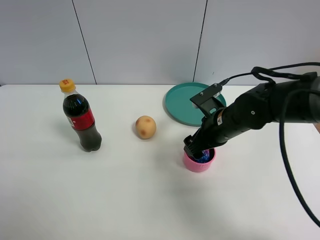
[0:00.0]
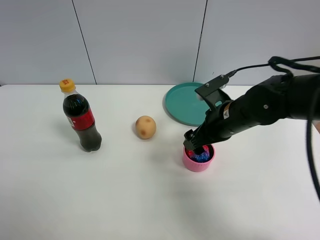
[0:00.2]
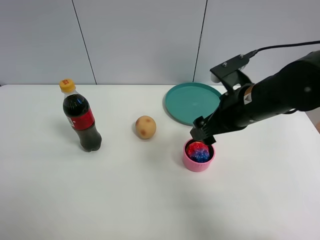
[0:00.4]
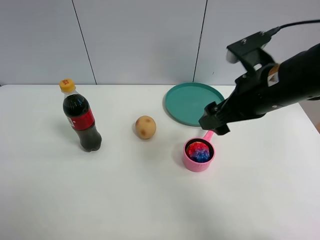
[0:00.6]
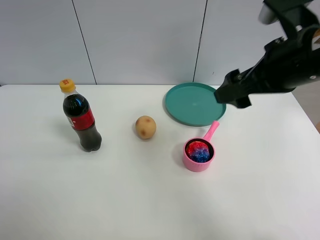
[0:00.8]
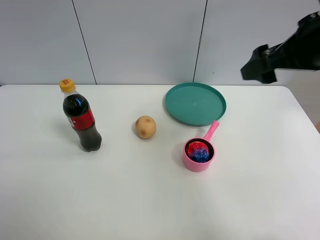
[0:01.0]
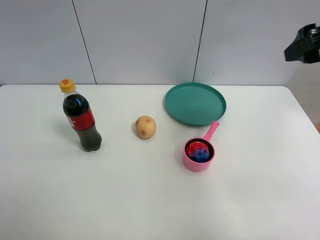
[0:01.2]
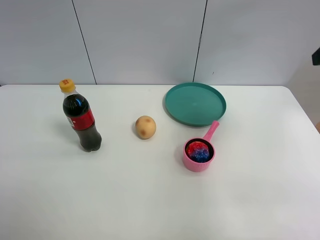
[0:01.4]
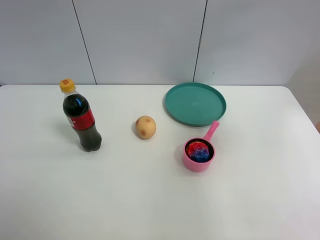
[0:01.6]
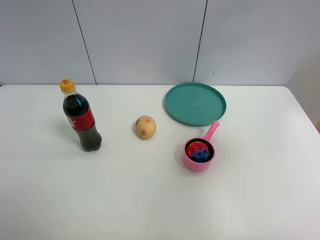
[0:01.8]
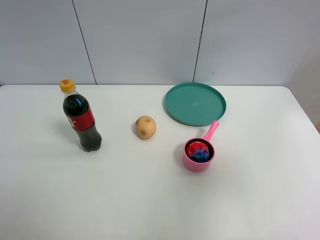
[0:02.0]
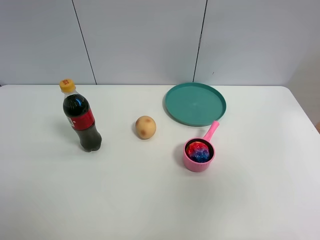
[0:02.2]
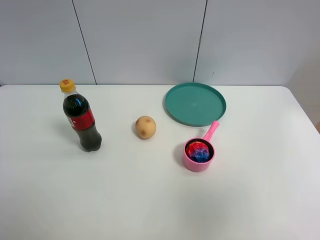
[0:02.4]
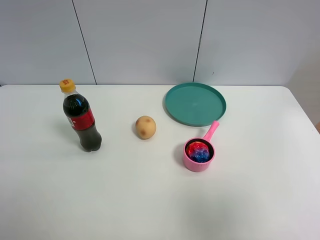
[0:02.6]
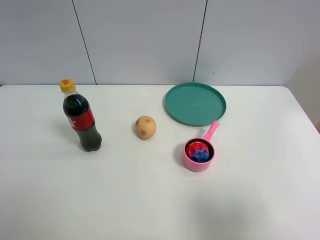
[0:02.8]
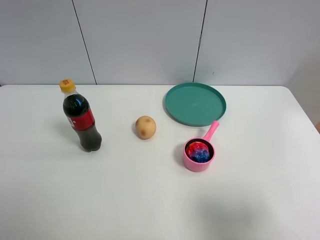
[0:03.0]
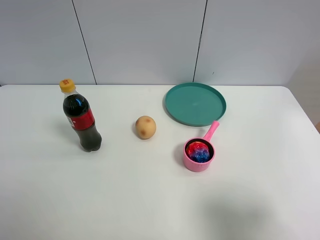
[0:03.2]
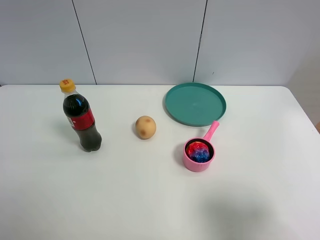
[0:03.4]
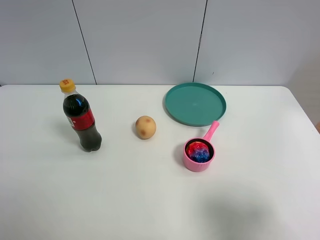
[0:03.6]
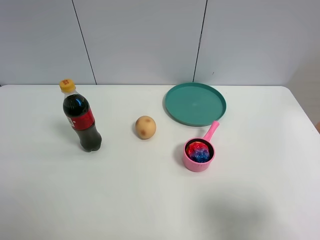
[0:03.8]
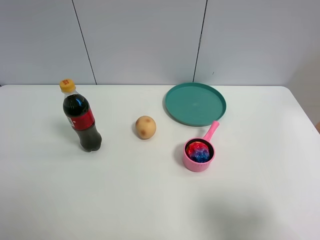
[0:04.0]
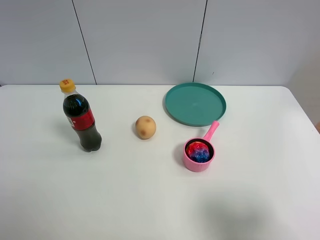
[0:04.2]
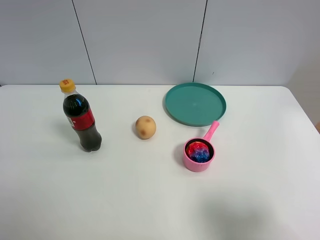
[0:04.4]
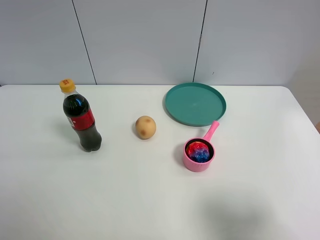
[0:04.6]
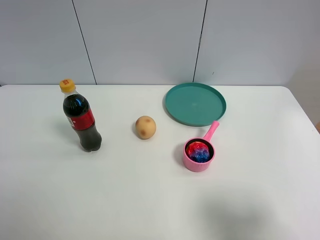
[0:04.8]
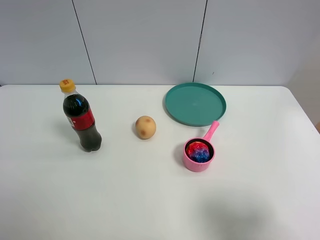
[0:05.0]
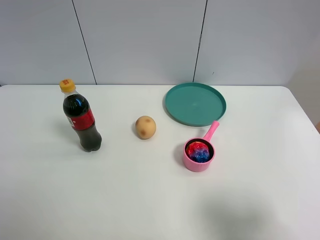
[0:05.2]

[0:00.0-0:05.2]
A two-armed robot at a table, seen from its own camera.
Task of the whole recording: the gripper move the object.
0:00.0 to 0:01.8: The right gripper travels upward, to the right and backward by approximately 35 cm, and opens its fingers.
0:01.8 to 0:03.4: The right gripper goes roughly 20 cm downward and backward.

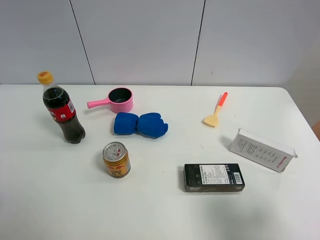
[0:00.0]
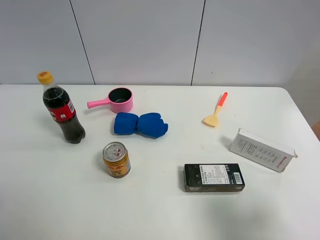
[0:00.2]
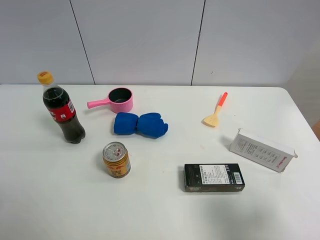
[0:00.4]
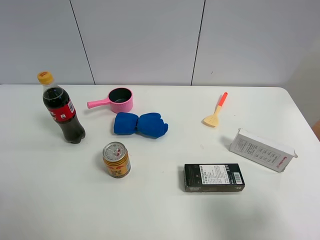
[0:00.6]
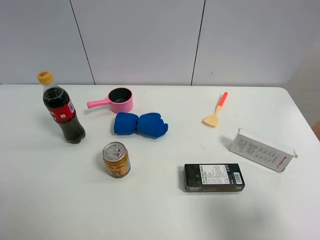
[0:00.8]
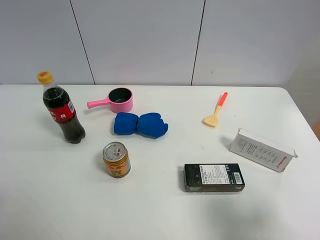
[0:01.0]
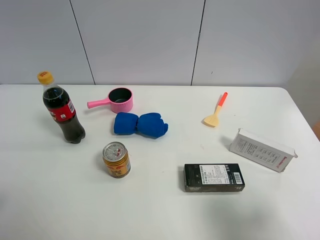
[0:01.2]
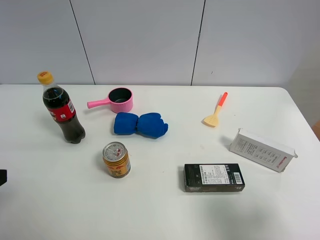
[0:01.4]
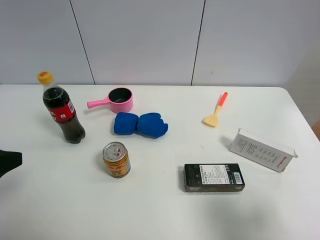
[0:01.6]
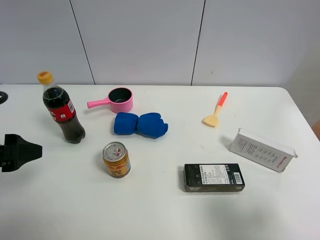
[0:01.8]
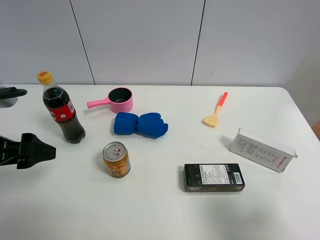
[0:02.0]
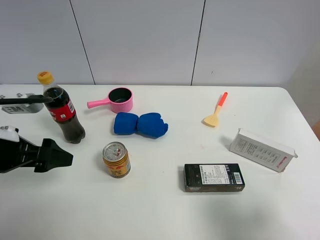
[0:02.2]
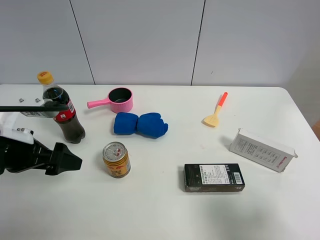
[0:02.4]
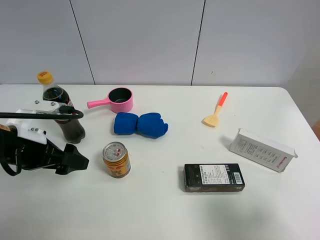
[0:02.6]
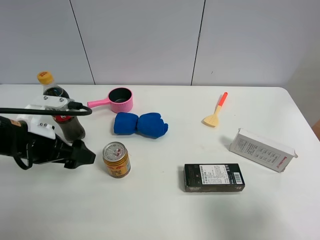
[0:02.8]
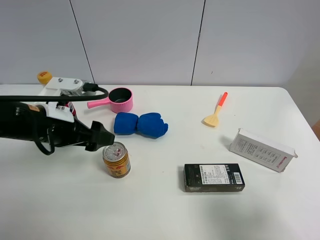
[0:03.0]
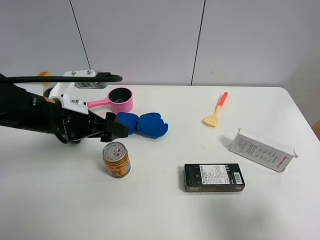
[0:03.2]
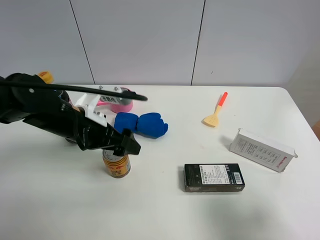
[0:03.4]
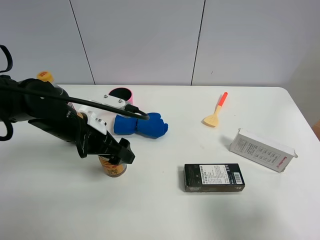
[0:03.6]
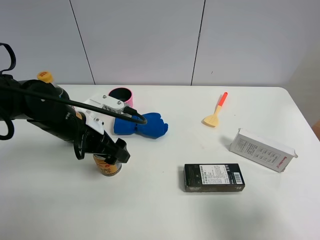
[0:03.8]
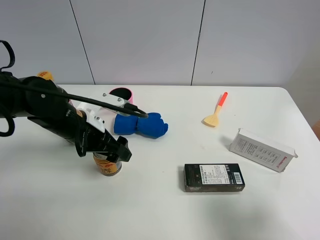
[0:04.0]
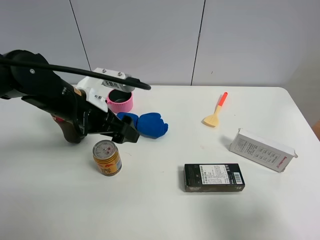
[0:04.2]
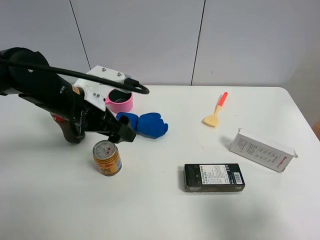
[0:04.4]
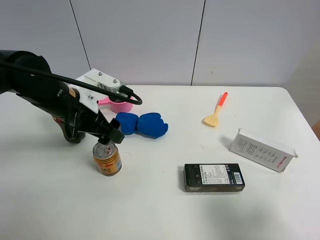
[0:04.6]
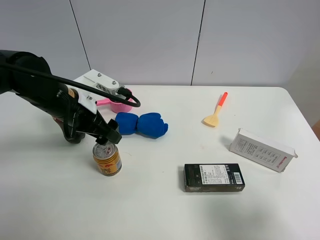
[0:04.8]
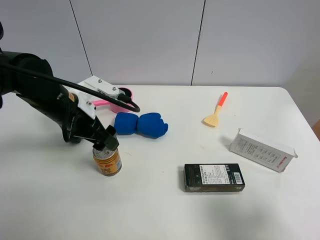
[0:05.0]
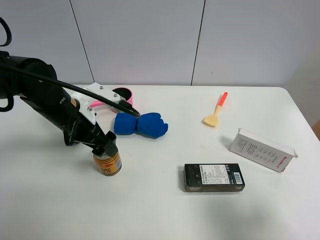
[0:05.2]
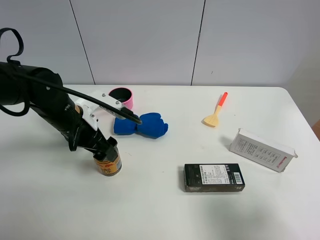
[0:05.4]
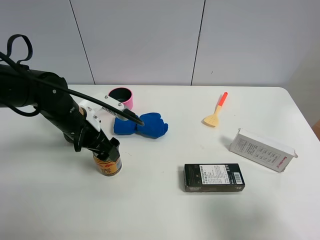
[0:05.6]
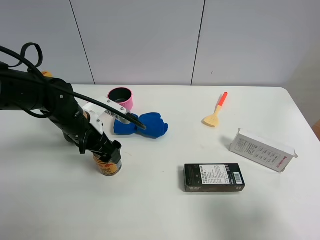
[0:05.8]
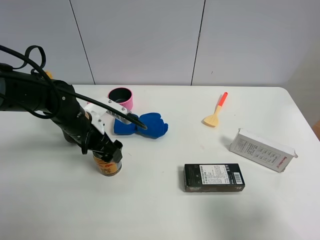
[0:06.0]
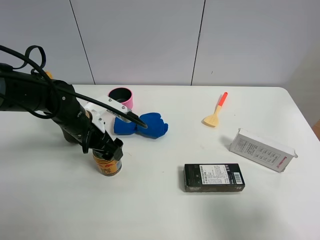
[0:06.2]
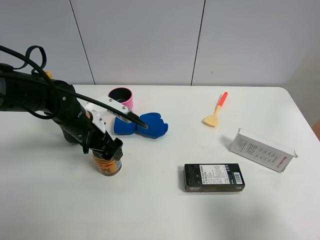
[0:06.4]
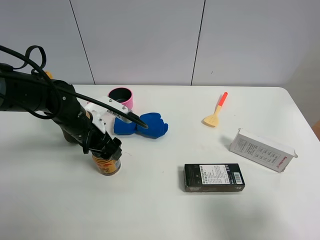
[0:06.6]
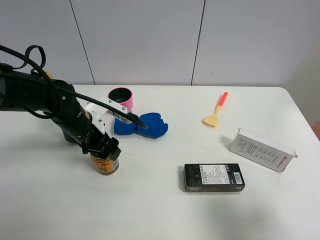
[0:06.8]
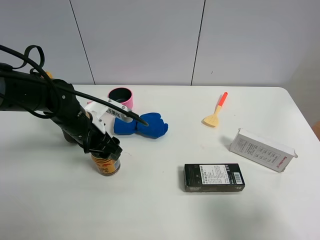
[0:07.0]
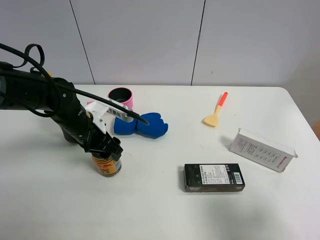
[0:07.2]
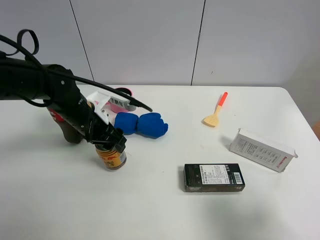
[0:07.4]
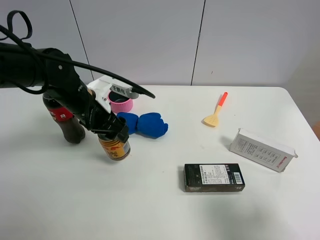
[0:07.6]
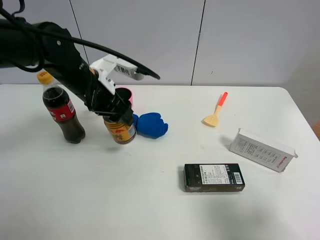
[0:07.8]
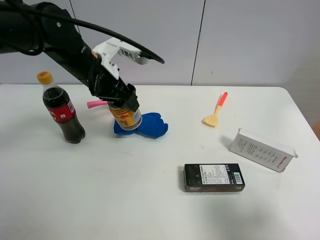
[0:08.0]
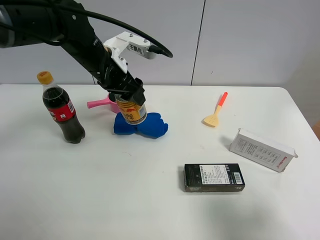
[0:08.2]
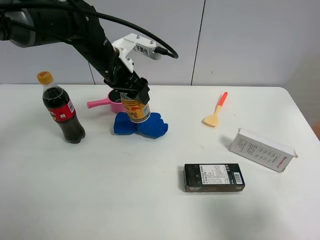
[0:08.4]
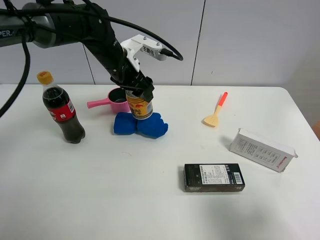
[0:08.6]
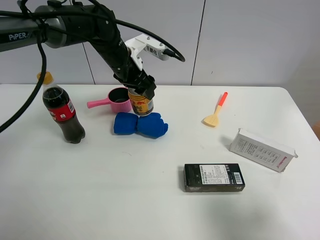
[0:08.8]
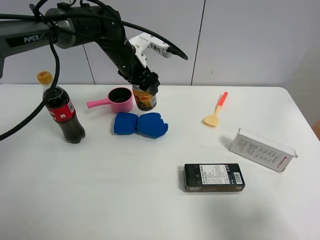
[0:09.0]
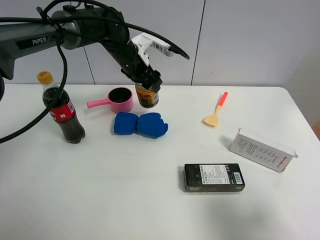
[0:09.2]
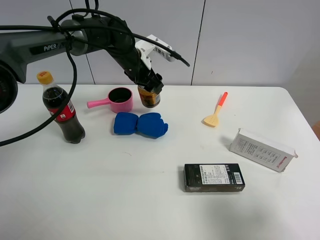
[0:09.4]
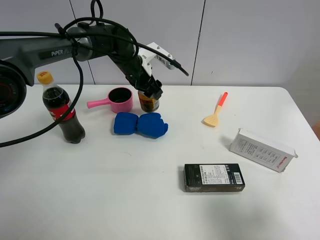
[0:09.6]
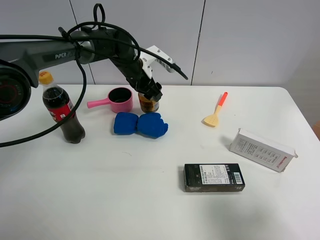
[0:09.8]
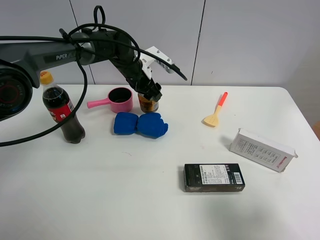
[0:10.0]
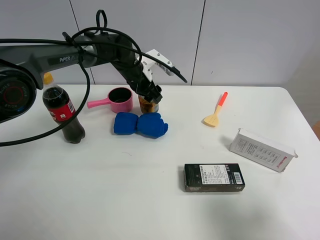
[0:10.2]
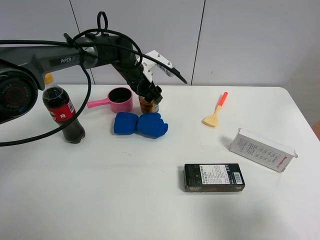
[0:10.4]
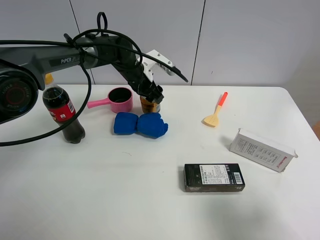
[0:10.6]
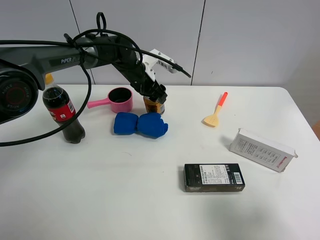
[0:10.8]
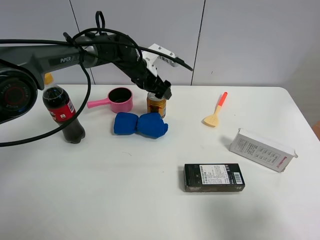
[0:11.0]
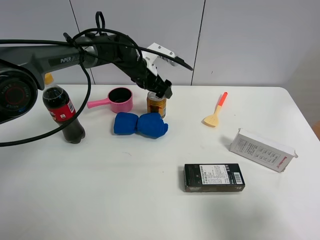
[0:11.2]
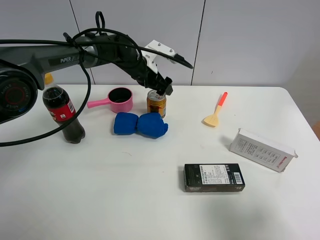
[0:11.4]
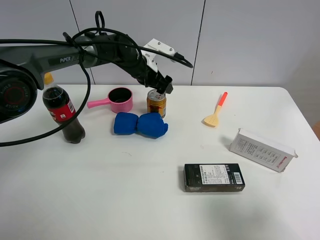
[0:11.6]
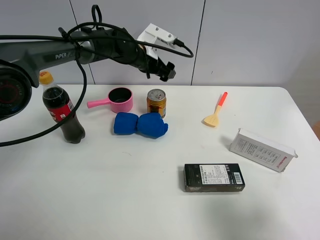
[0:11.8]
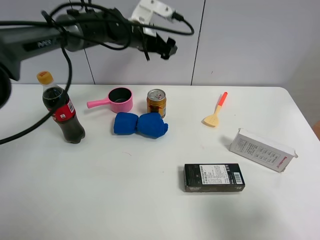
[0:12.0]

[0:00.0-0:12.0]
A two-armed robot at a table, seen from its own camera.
Task of the whole recording: the gripper move the object.
Step, 0:00.0 to 0:06.8: Grasp the red bull with the left gripper.
Step, 0:07.0 to 0:11.0: Place the red bull on the table with the left gripper.
0:00.0 to 0:01.6: The left gripper travels forward by some 10 cm.
0:01.6 to 0:03.0: The left gripper shifts approximately 15 cm forward, to the right and downward.
0:03.0 to 0:04.4: The left gripper ends up approximately 5 cm from where it was.
0:04.4 to 0:06.0: The left gripper goes some 5 cm downward.
0:06.0 to 0:07.6: The left gripper moves upward, some 5 cm, and closes its fingers.
0:07.6 to 0:09.0: The left gripper travels forward and to the right by some 15 cm.
0:09.0 to 0:10.4: The left gripper goes approximately 5 cm downward.
0:10.4 to 0:12.0: The left gripper goes about 10 cm upward, and opens its fingers.

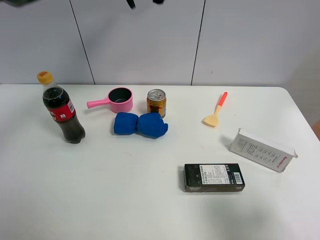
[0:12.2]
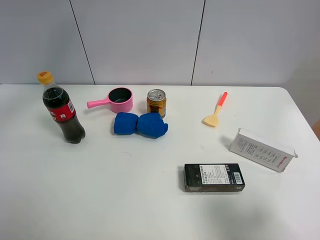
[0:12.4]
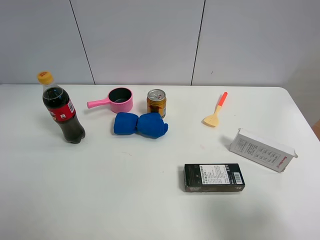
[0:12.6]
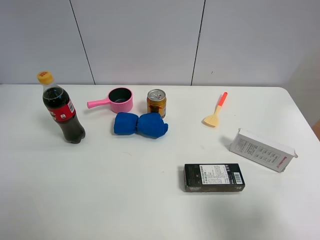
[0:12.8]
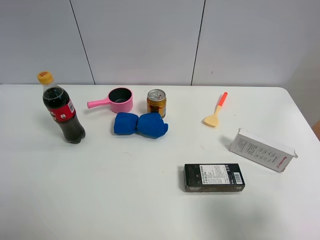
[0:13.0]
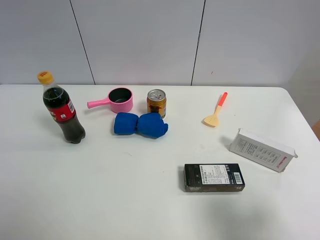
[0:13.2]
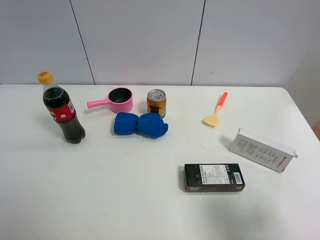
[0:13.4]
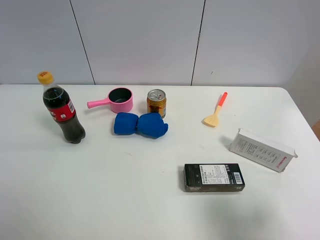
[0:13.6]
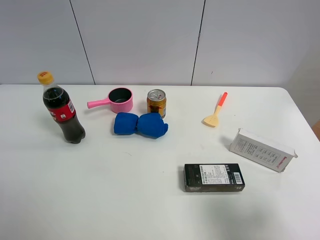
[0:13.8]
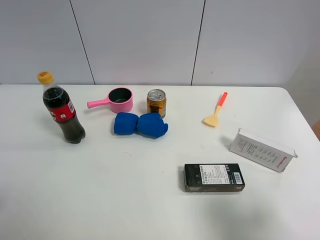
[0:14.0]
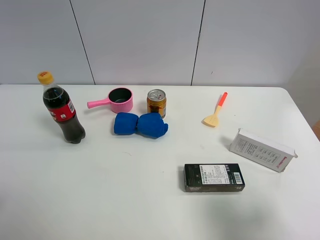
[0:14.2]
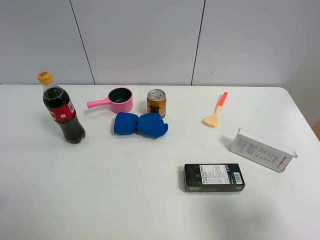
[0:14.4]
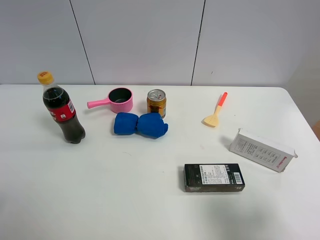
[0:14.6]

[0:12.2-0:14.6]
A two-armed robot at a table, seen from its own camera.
Task of the whole recording: the gripper move the object.
0:12.2 to 0:13.4: The left gripper is displaced backward and to the left by some 40 cm.

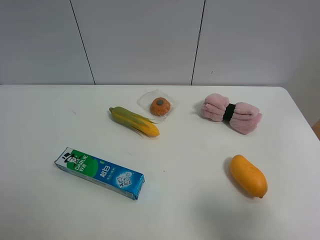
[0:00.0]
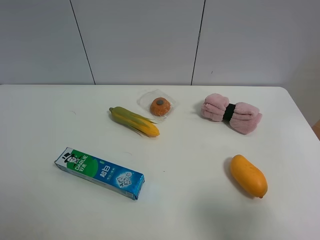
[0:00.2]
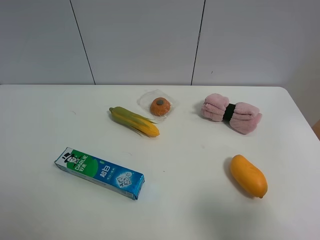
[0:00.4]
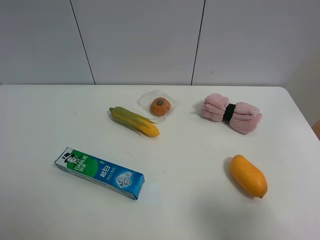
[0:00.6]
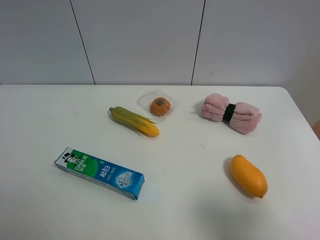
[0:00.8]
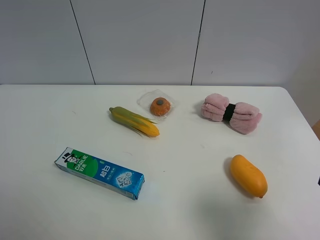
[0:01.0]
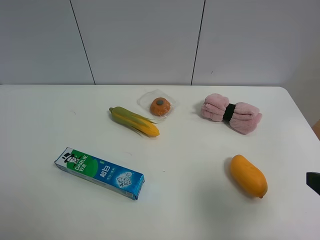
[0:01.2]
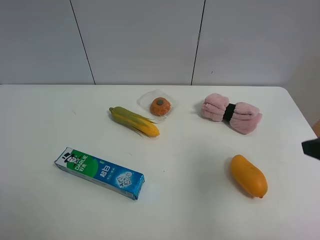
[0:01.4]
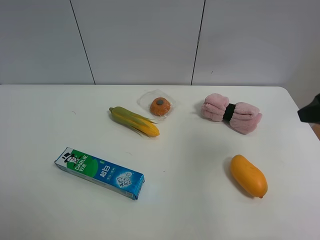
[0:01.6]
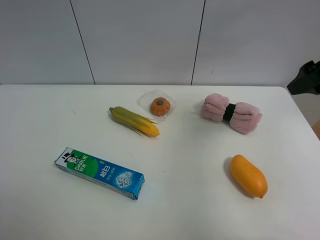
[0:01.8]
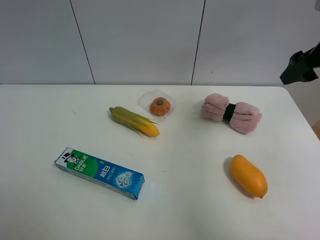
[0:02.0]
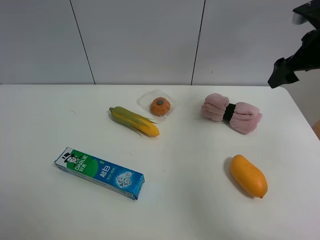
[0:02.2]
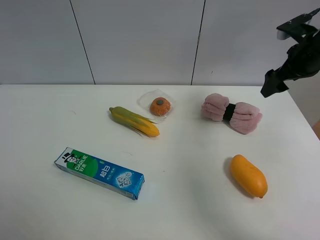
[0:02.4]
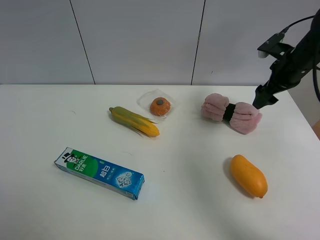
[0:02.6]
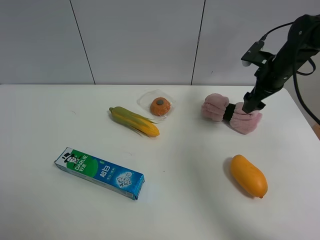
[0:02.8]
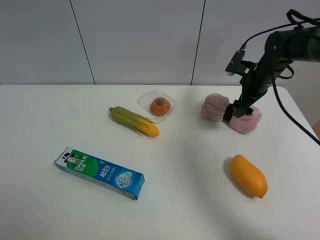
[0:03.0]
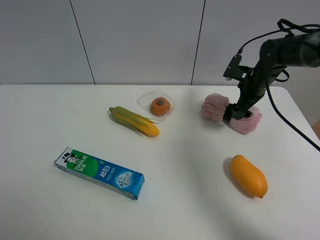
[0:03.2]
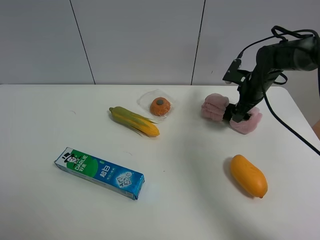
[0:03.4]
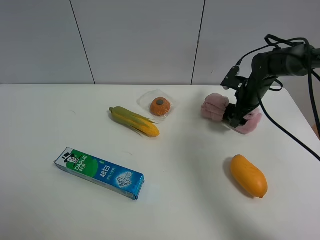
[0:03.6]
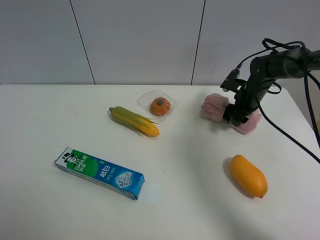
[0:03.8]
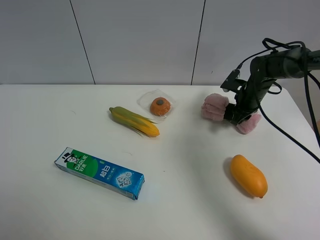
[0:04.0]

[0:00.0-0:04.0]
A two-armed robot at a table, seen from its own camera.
Task of the whole recording: the gripper move the object.
Step, 0:00.0 to 0:04.0: Grasp the pink towel with the right gripper.
0:00.0 to 0:01.4: The right gripper goes roughly 15 cm forward.
0:01.4 to 0:02.6: The right gripper shifts some 25 cm forward.
0:02.6 to 0:04.0: The right gripper travels downward by about 10 cm, and closes up.
